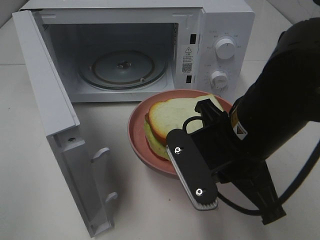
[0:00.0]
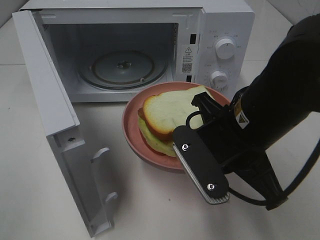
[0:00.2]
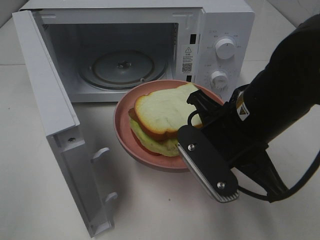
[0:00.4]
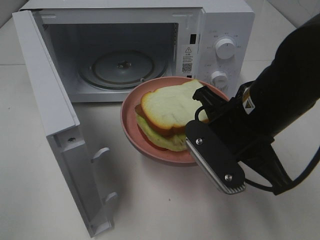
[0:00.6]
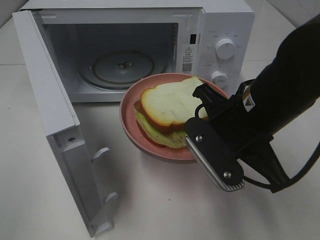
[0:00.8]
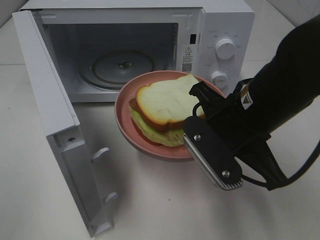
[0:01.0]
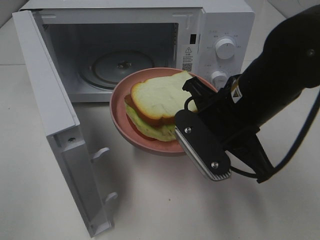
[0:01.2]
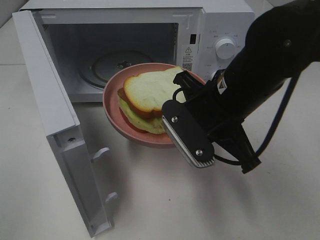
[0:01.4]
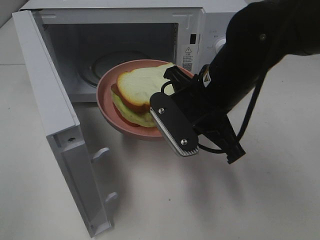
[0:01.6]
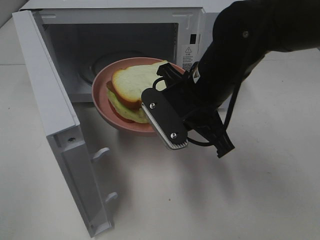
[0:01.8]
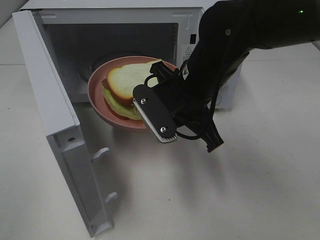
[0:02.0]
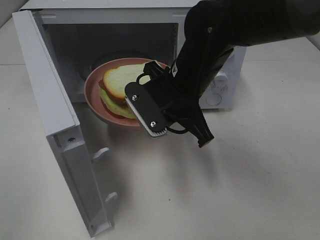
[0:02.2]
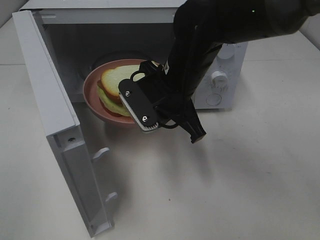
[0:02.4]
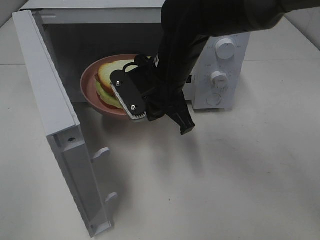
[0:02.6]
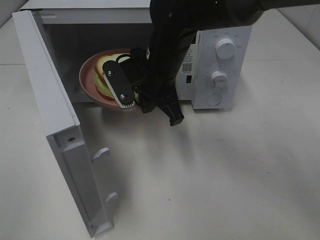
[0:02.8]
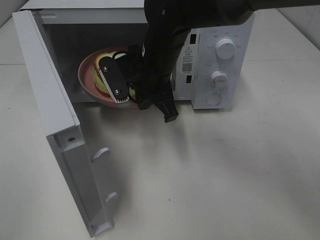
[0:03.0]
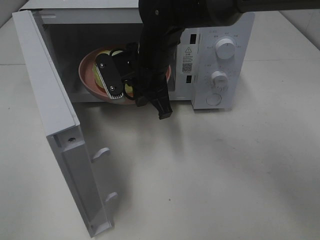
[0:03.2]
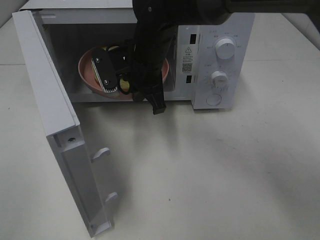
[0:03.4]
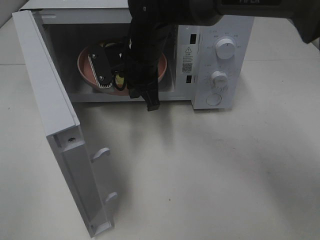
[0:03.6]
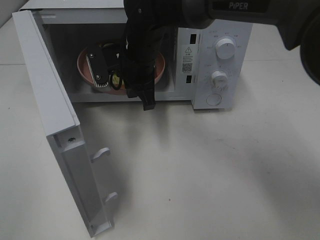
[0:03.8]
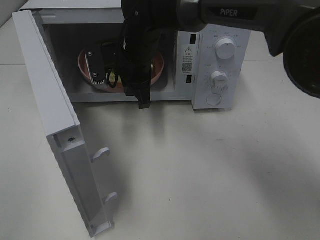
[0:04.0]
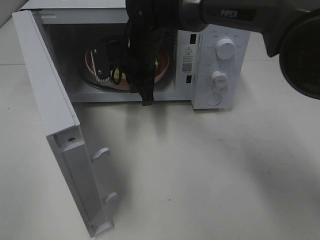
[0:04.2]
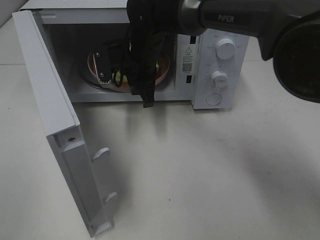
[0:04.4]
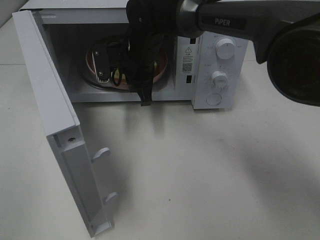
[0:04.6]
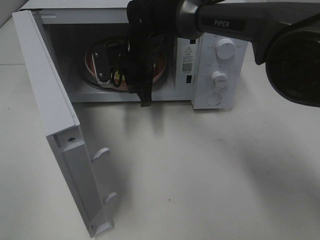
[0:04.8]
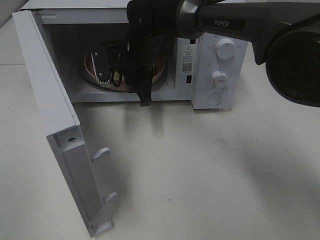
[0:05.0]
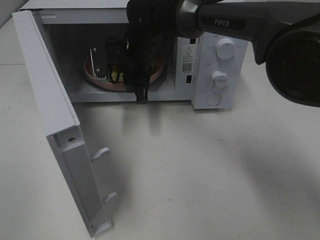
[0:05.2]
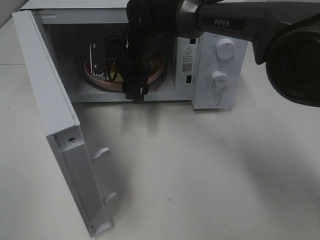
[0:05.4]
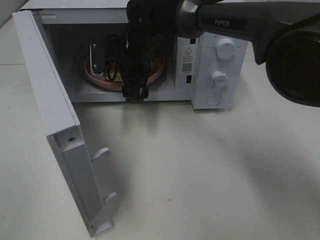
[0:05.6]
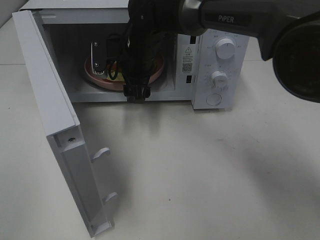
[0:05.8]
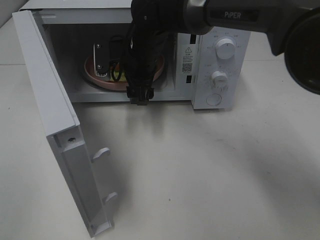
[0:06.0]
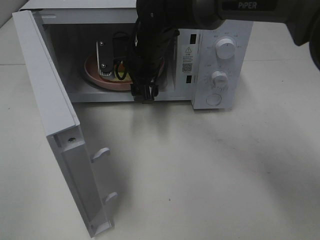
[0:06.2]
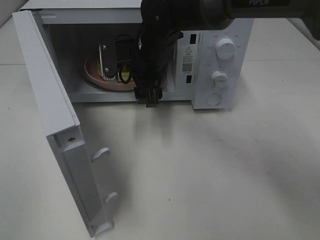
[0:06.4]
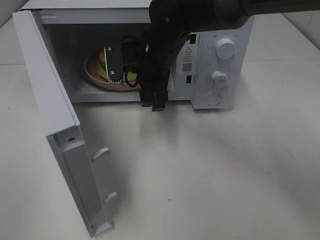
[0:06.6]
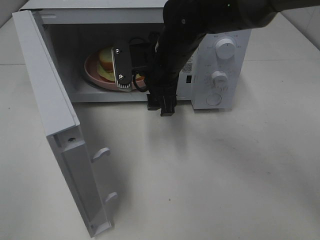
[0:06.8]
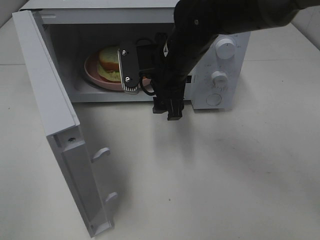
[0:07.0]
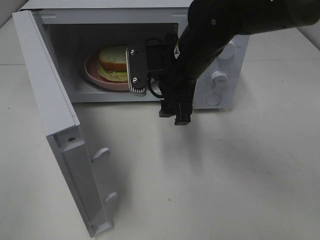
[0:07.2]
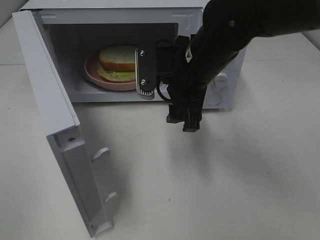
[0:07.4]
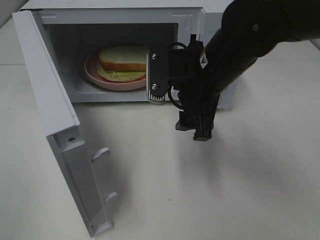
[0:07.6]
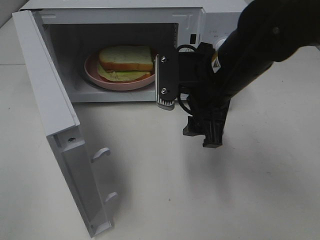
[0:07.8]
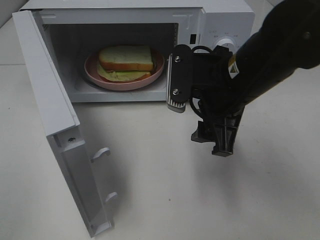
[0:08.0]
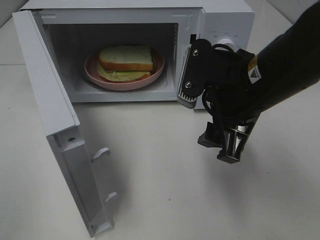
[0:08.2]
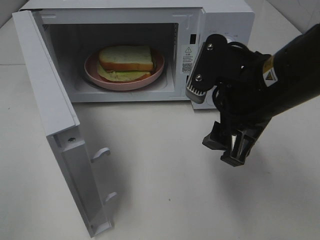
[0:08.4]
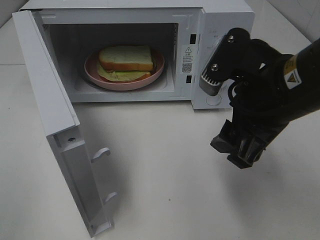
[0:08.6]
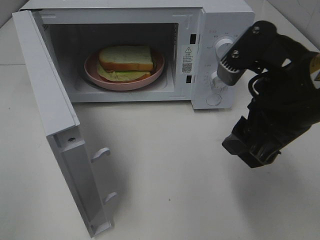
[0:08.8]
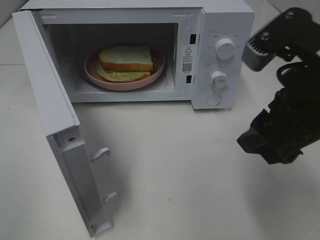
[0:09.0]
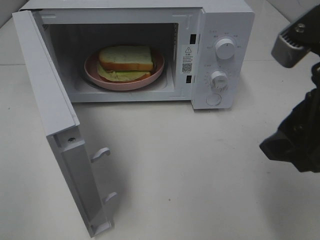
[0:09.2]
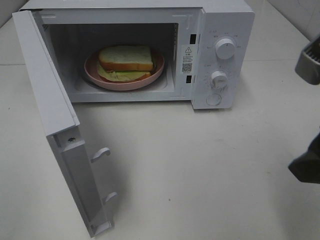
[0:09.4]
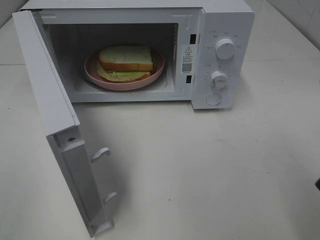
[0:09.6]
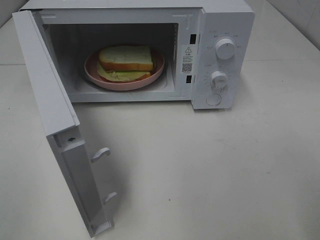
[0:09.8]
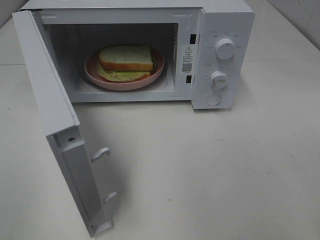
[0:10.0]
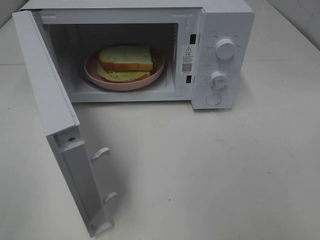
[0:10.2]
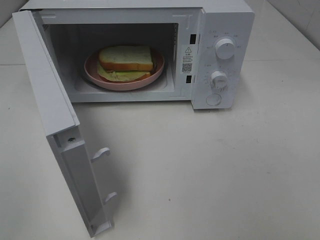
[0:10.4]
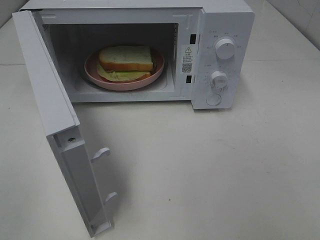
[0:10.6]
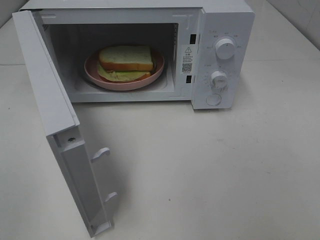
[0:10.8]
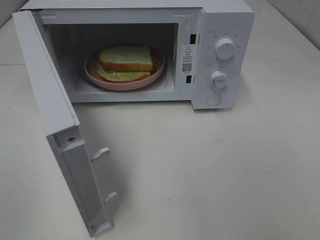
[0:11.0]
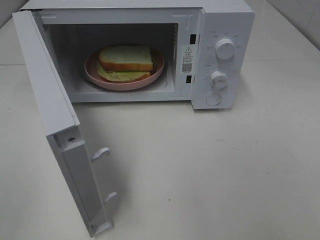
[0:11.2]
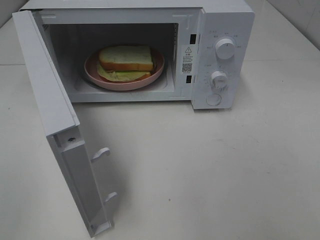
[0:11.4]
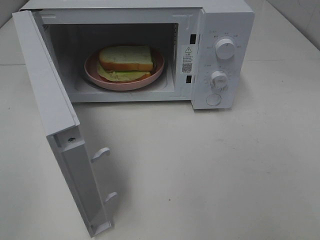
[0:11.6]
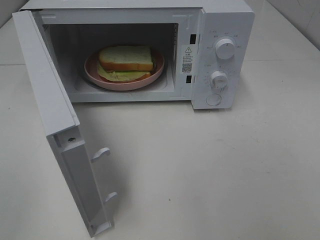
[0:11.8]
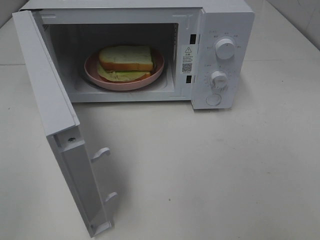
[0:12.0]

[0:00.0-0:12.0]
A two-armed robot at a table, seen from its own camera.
Task of the whole recording: Heat Sandwich.
Step, 0:00.0 to 0:06.2: Right hand: place the plate in the microwave.
0:00.0 to 0:01.6: The right gripper shifts roughly 5 cm forward.
0:01.6 to 0:03.0: The right gripper moves forward and to the left, some 10 cm.
0:03.0 to 0:04.4: The right gripper is displaced forward by some 5 cm.
0:04.4 to 0:06.0: The right gripper opens up.
0:06.0 to 0:07.6: The right gripper is displaced backward and to the right by some 15 cm.
0:07.6 to 0:09.0: The right gripper shifts about 15 cm backward, to the right and upward.
0:09.0 to 0:10.4: The right gripper travels to the right and backward by about 15 cm.

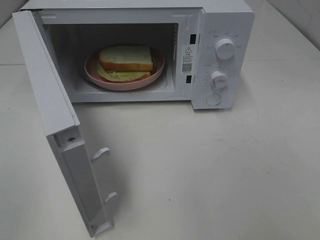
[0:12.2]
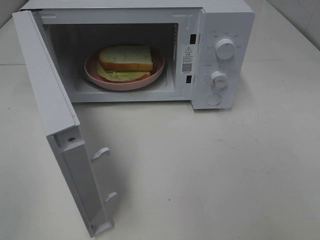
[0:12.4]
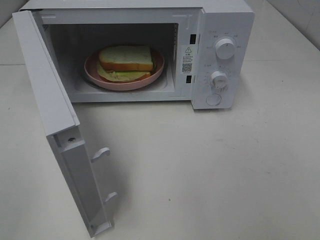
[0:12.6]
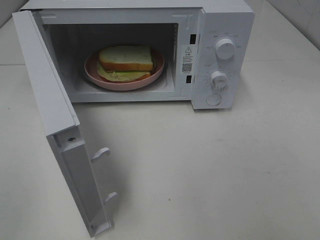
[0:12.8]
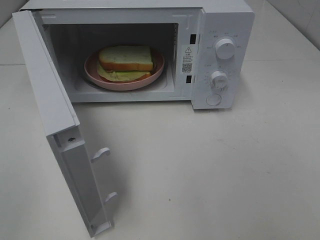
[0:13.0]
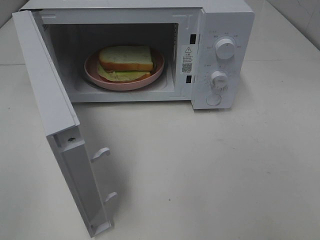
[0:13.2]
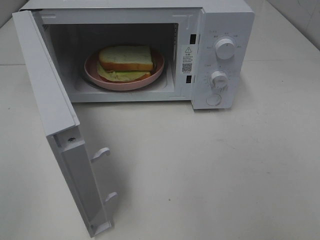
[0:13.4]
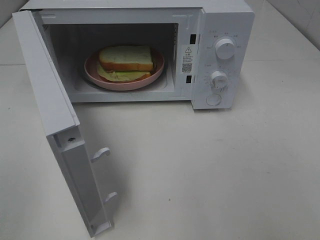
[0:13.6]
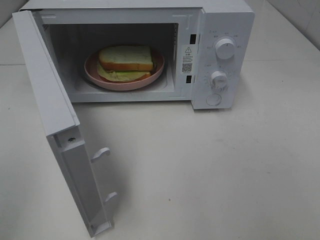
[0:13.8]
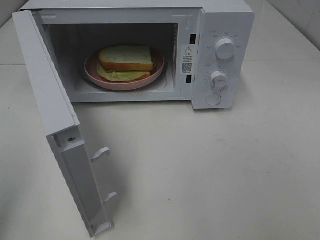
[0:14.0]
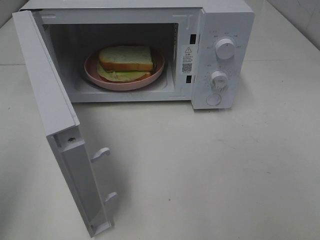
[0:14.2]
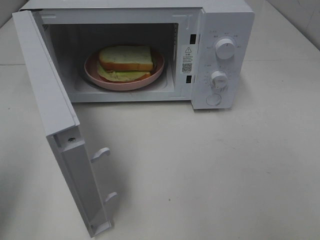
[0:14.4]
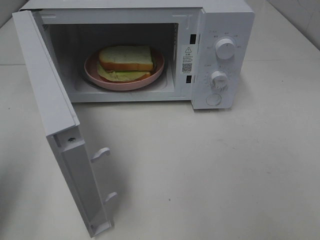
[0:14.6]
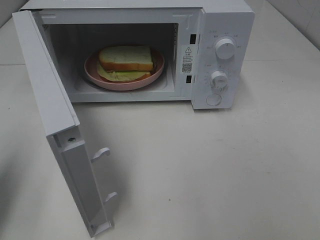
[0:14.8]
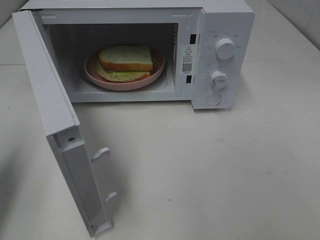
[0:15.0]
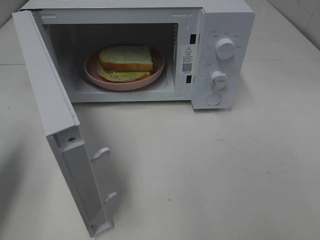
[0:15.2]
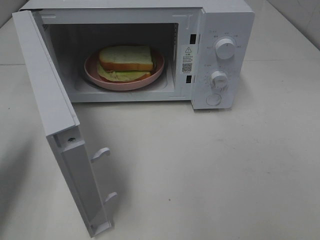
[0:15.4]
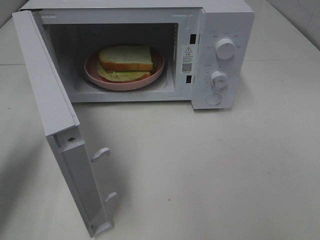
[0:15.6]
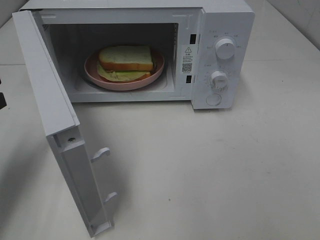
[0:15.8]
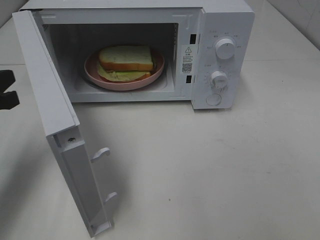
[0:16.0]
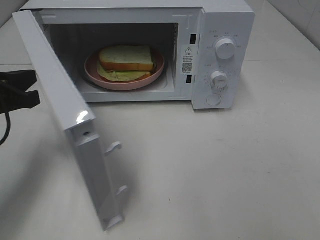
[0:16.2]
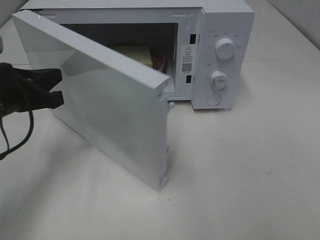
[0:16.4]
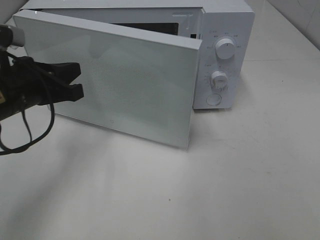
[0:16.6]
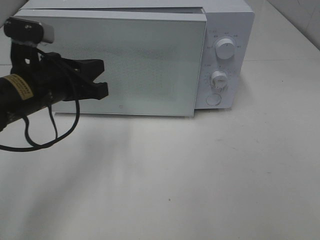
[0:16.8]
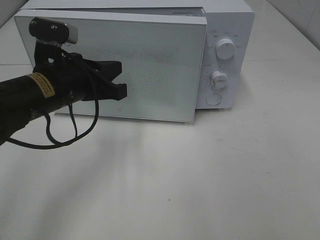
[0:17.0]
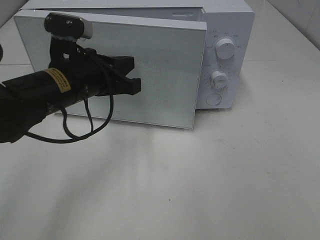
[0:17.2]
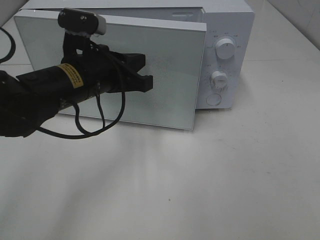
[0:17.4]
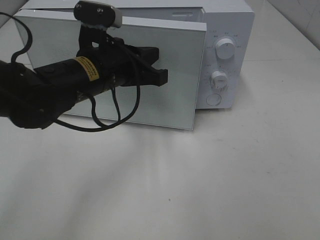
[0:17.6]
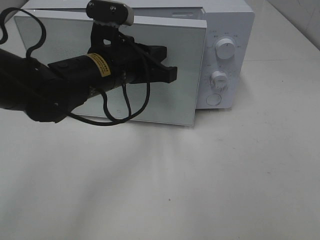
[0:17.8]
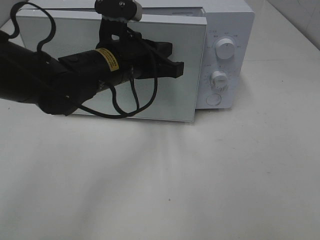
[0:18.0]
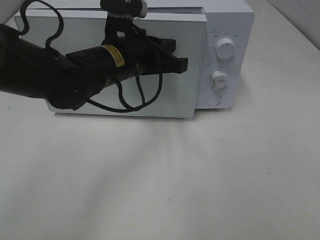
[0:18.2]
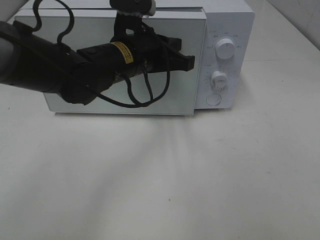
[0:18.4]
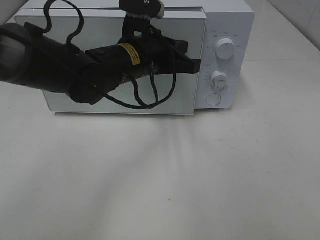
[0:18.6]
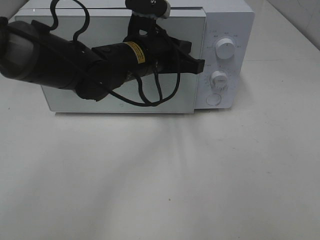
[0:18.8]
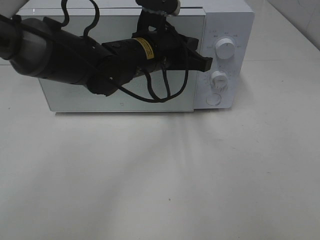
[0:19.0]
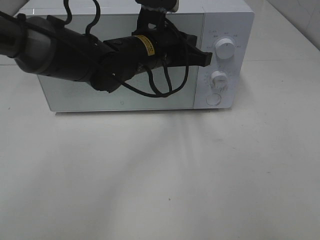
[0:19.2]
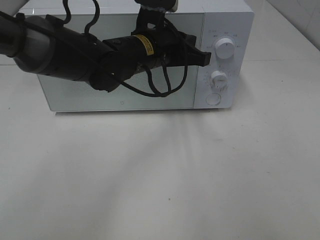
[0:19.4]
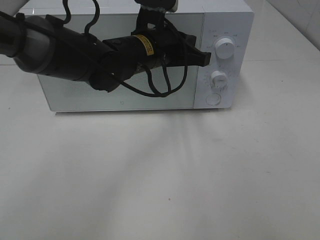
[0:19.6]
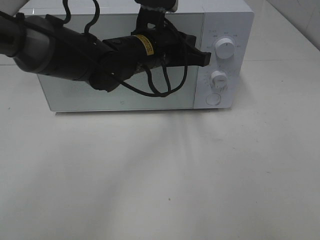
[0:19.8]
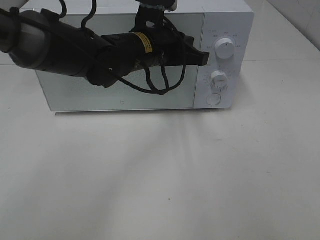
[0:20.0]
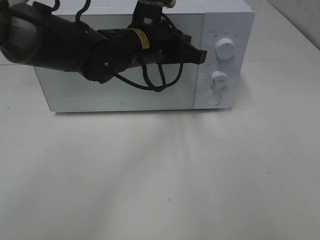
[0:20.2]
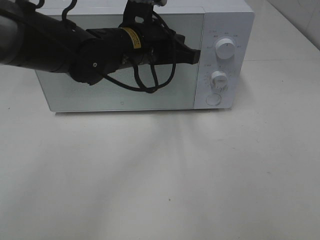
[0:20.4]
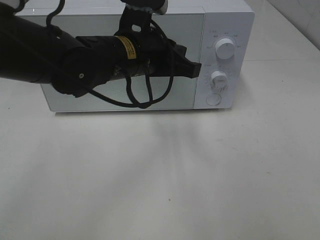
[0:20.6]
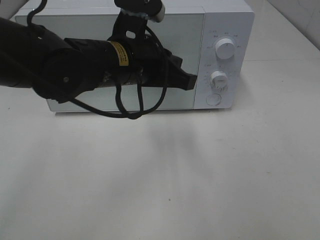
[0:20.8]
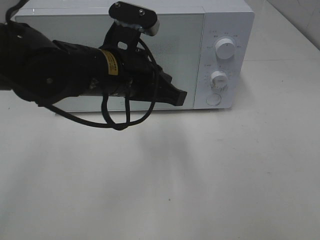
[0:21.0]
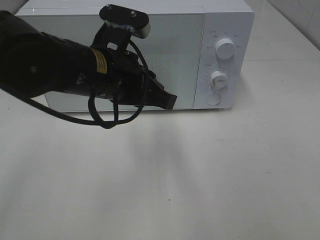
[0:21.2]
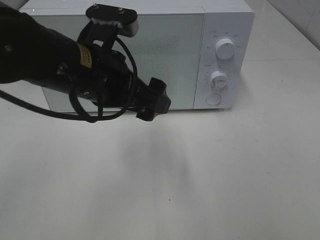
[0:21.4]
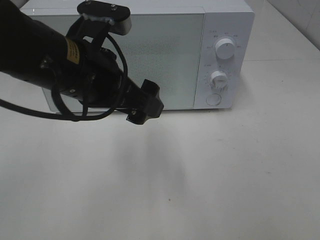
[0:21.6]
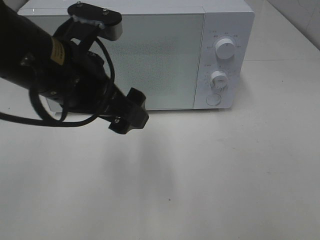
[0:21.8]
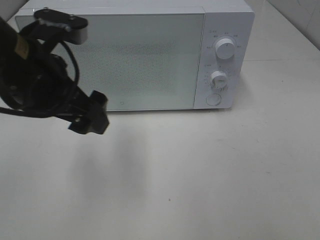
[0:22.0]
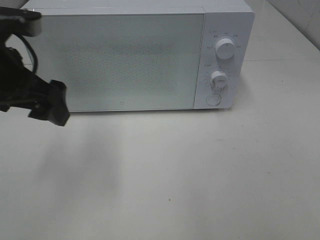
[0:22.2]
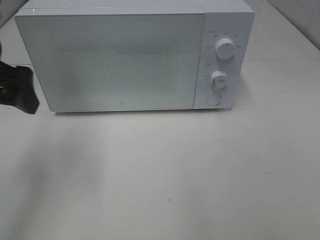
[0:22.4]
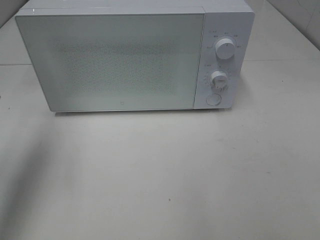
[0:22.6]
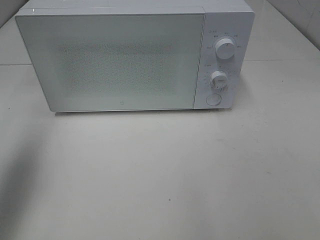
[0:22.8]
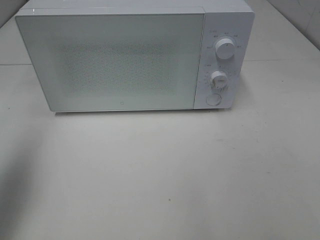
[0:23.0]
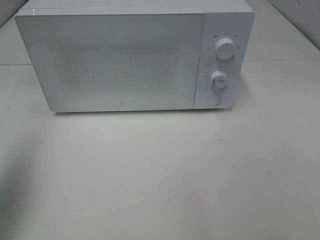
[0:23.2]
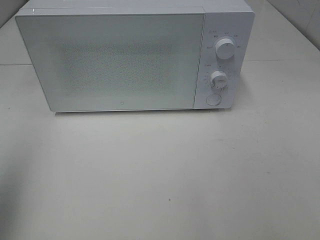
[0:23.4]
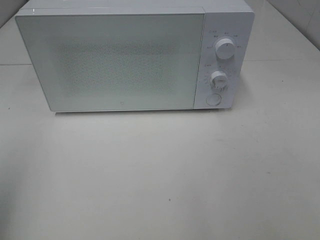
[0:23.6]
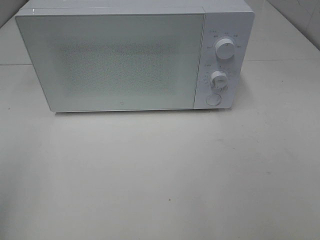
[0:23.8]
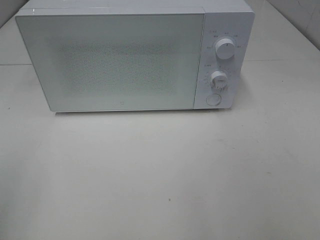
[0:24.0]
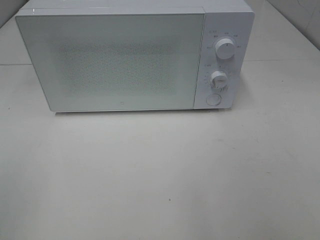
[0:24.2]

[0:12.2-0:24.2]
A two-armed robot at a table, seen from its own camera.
Task of the whole recording: Heat Sandwich.
Step, 0:12.2 to 0:20.4: Left hand: close the microwave door.
0:13.8 to 0:15.2: The left gripper is displaced forward and downward by some 20 cm, and closes up.
0:15.2 to 0:16.6: The left gripper moves to the right and forward, approximately 15 cm.
0:16.6 to 0:18.2: The left gripper travels to the right by roughly 15 cm.
0:18.2 to 0:19.8: The left gripper ends up roughly 5 cm from where it was.
0:19.8 to 0:21.2: The left gripper moves backward and to the left, about 10 cm.
0:21.2 to 0:22.6: The left gripper travels to the left by some 20 cm, and opens up.
0:22.6 to 0:24.2: The left gripper heads backward, covering some 20 cm.
